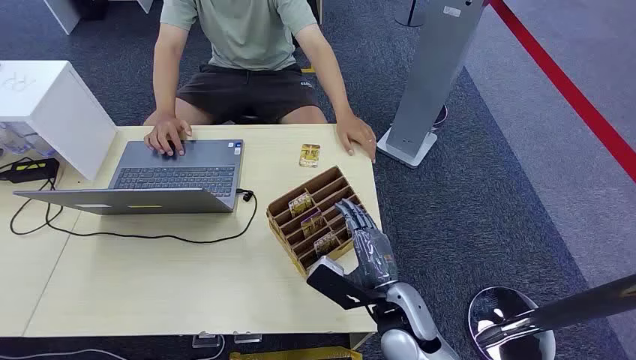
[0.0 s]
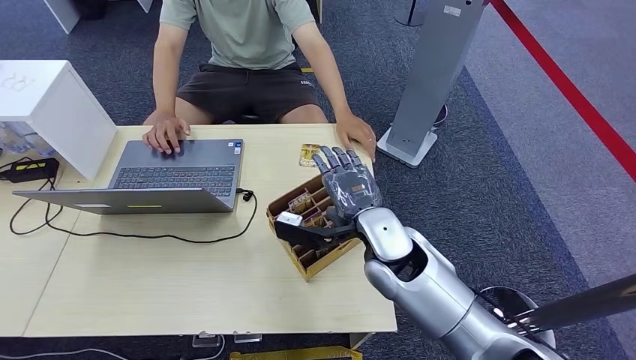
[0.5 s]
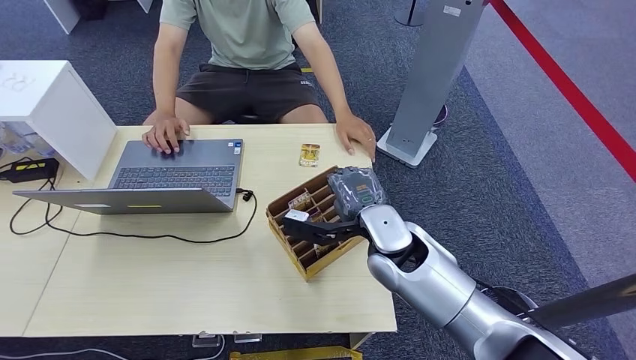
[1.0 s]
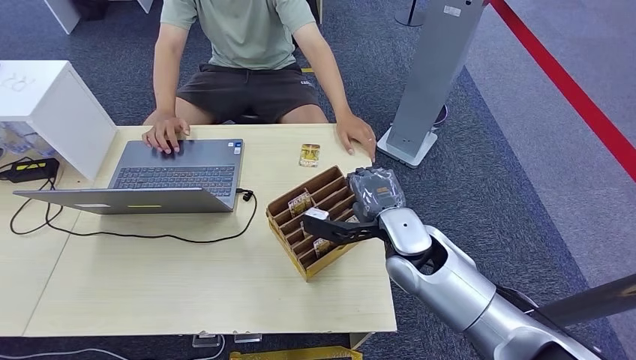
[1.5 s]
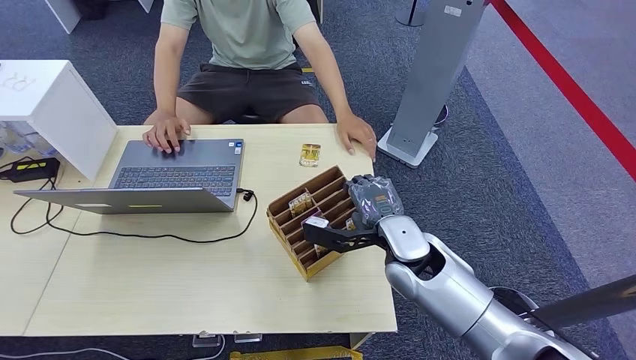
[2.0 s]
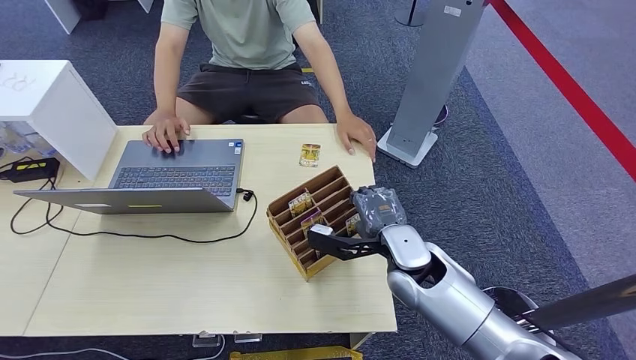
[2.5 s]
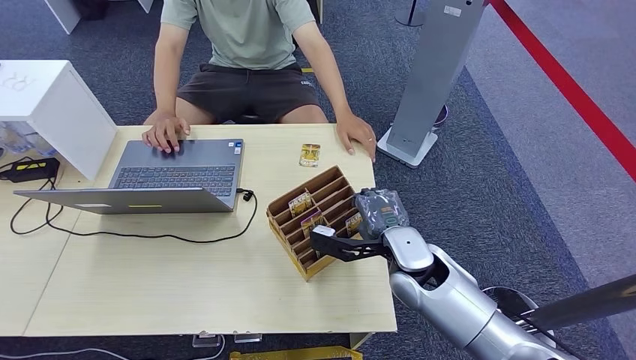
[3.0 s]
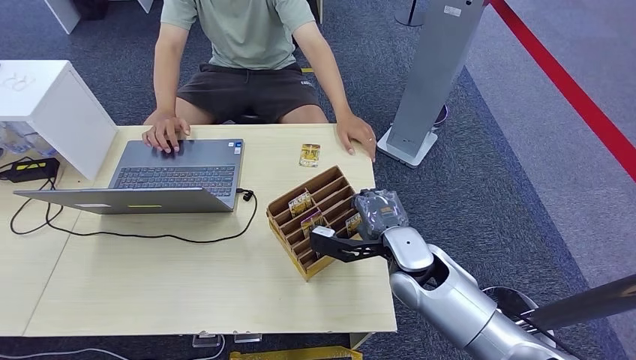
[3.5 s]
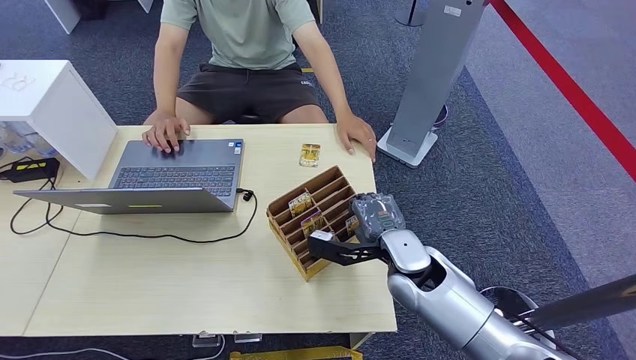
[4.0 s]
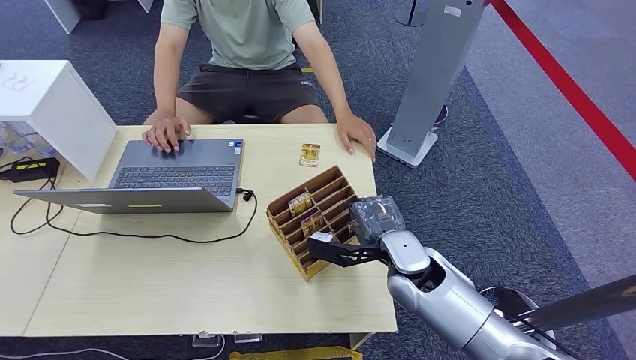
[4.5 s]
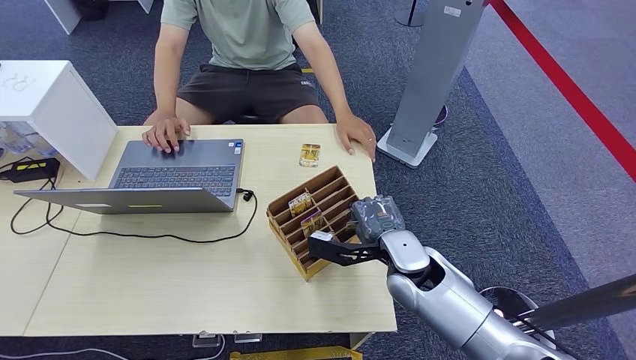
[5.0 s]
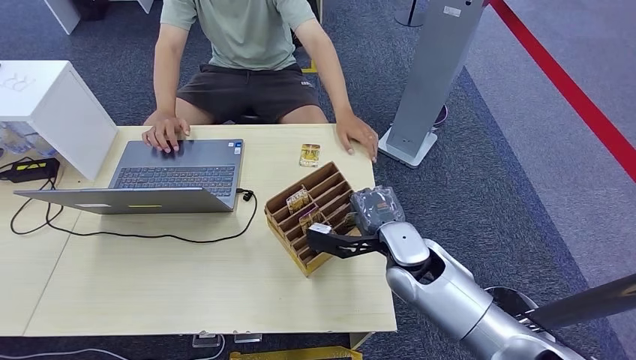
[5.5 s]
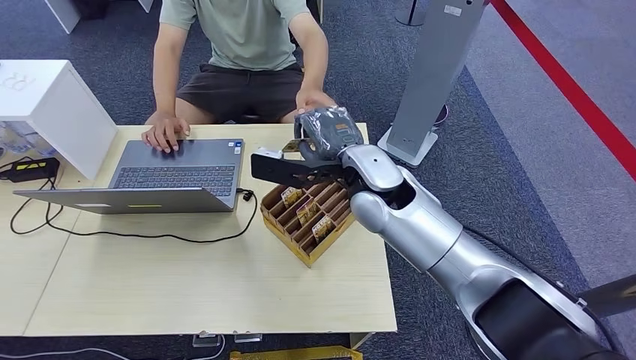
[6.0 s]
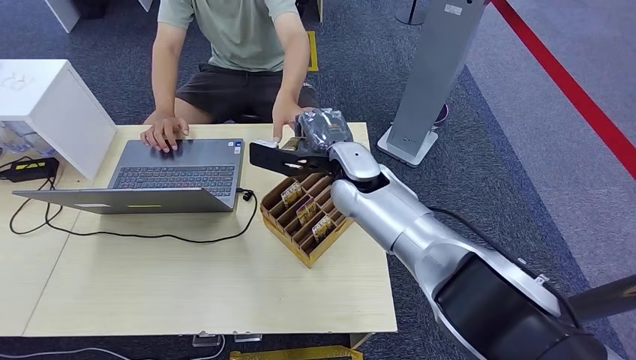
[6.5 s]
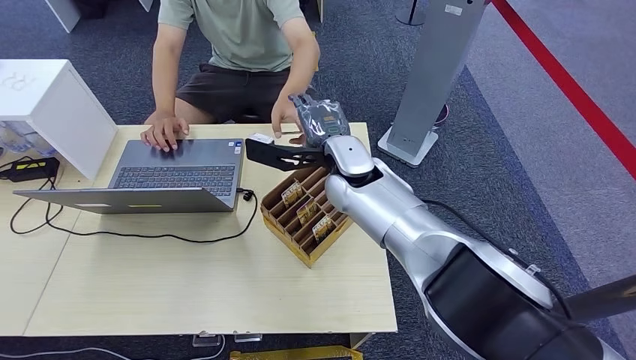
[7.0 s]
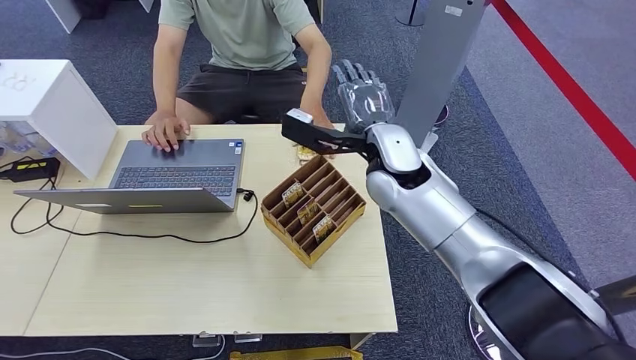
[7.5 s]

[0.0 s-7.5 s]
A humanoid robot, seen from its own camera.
Task of the whole recording: Pick up the card and hand it over to the target person.
Step, 0.0 to 6.0 s: Pick up the key card from the card box.
Step, 6.5 to 7.5 s: Hand the key card to the target.
2.0 to 4.0 s: The hands move only a little.
4.0 to 5.5 s: The right hand moves upward, roughly 10 cm.
5.5 to 7.5 s: The right hand heads to the right, backward and upward, covering about 10 cm.
